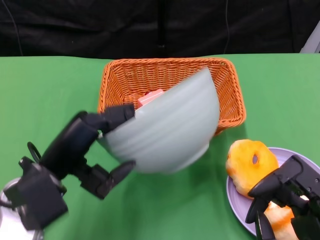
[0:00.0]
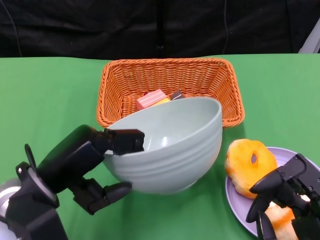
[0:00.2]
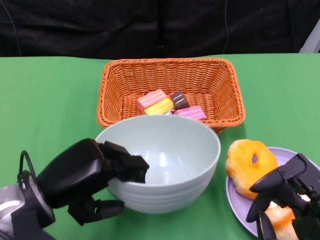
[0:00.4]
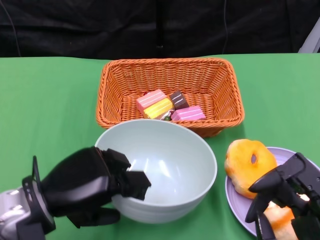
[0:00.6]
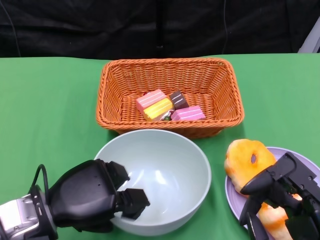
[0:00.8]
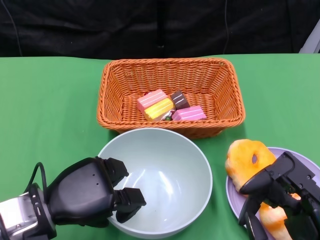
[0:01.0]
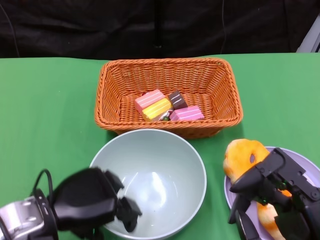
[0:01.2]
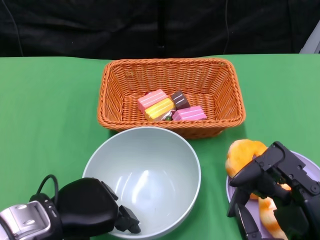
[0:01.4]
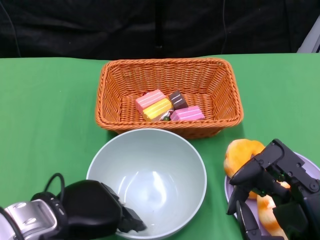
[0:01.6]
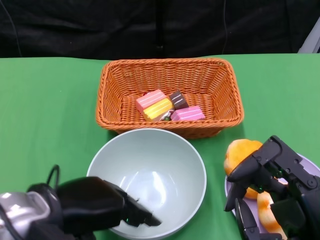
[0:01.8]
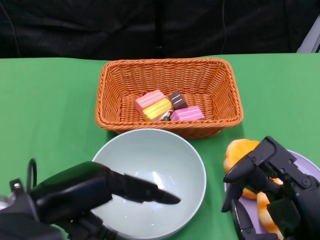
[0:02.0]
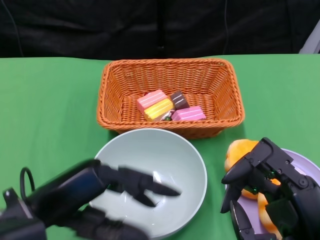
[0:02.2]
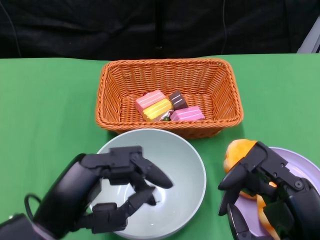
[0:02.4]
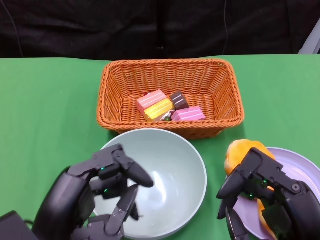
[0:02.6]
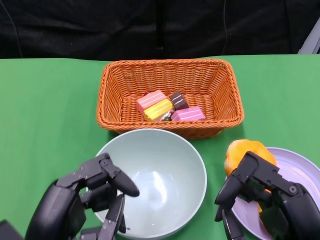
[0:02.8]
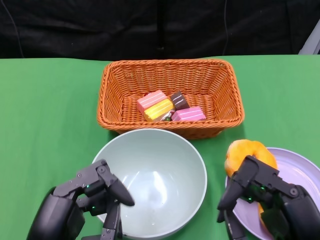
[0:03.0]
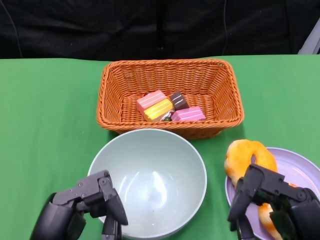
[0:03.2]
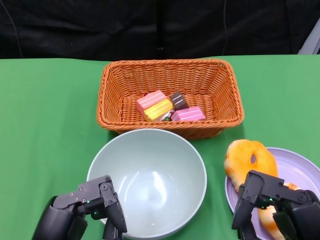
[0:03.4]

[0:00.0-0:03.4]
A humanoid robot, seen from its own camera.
Step, 0:00.0 to 0:01.8: Place the bowl on the table with the left gripper.
0:01.6 to 0:03.4: The left hand goes roughly 10 cm backward.
